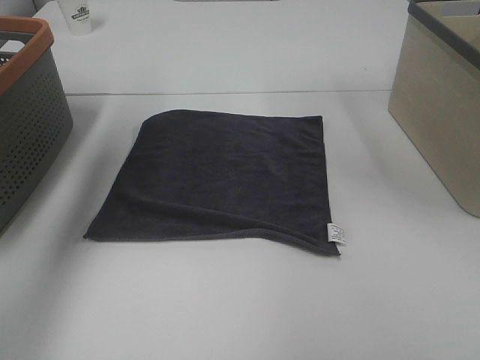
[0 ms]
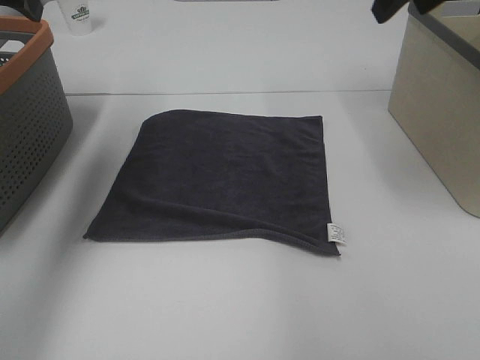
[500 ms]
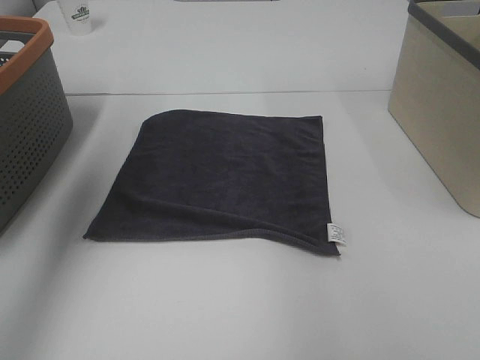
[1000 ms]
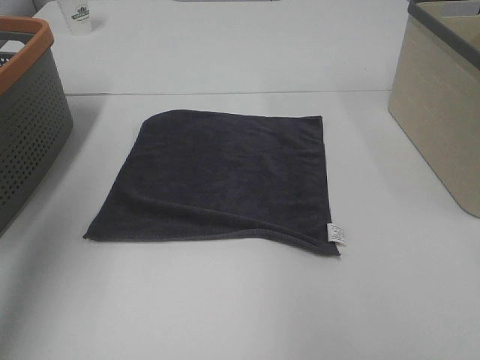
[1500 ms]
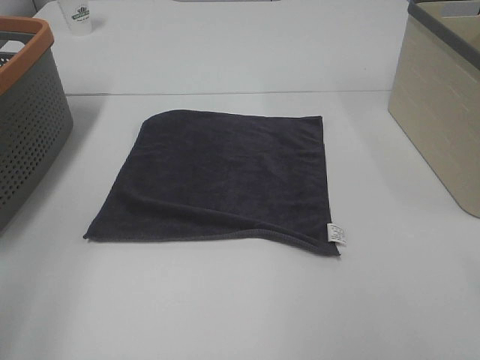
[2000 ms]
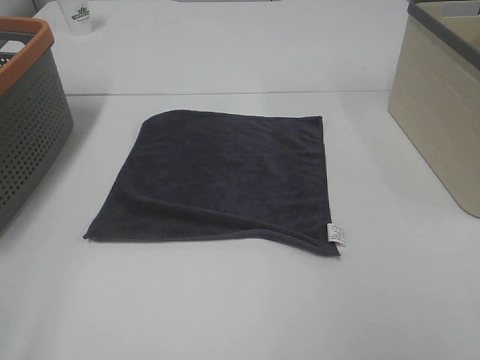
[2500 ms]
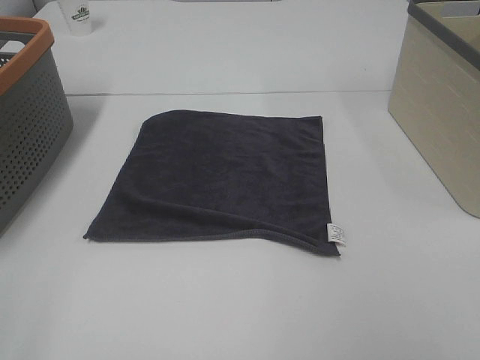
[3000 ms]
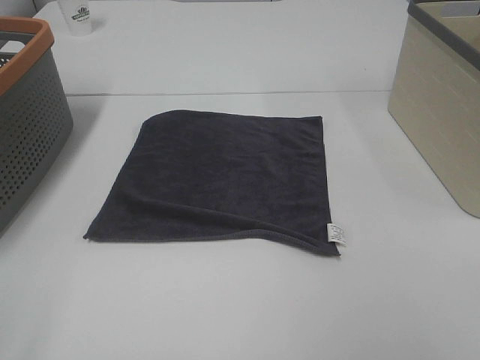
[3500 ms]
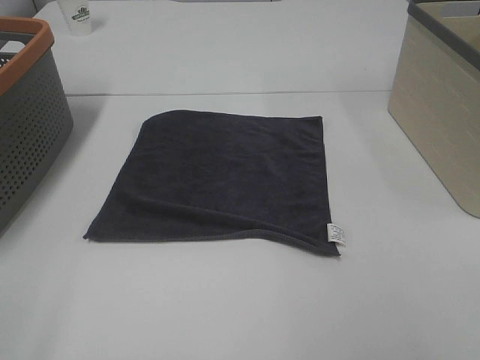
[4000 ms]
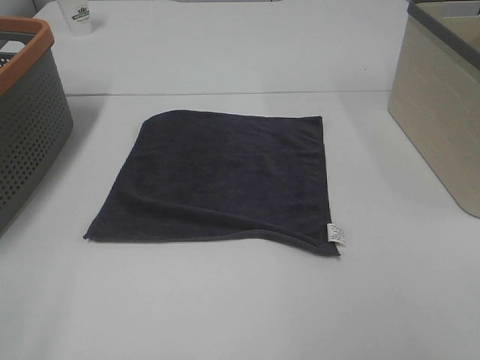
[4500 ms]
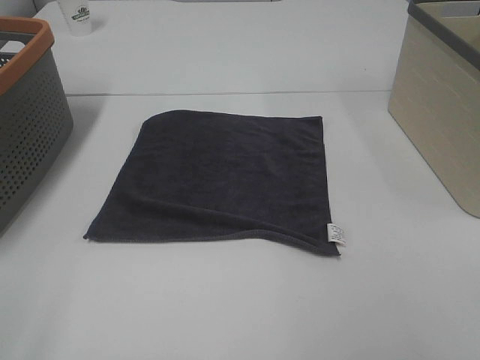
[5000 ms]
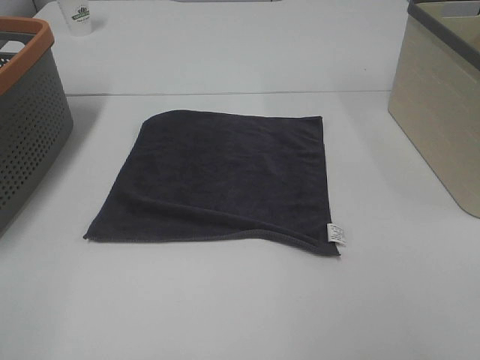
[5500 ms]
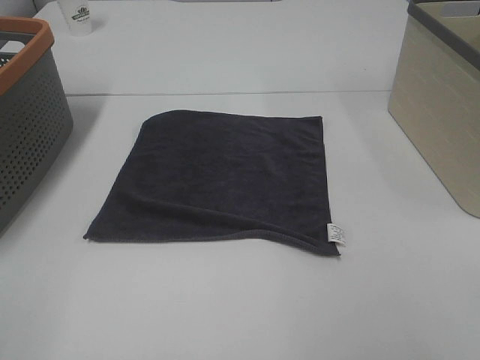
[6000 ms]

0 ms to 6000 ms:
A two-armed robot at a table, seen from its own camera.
Task of the whole recording: Remove the towel and place it.
0 ms to 2000 ms: The left gripper goes some 30 cm backward, while the right gripper is displaced backward and to the right by approximately 25 cm.

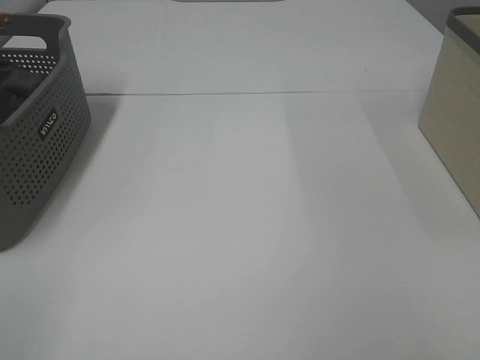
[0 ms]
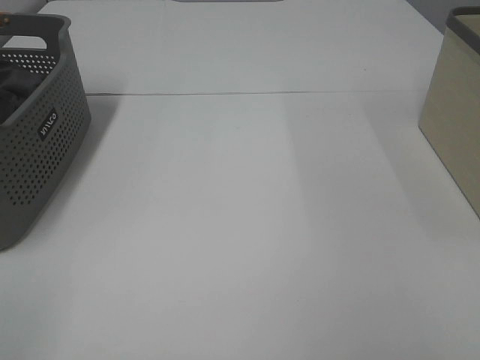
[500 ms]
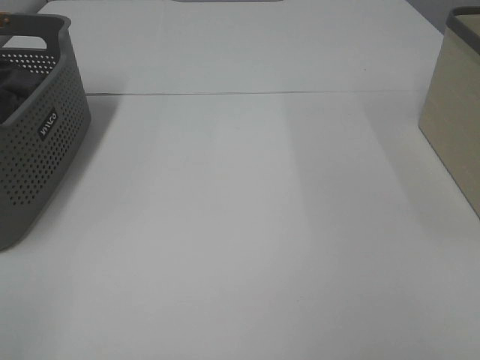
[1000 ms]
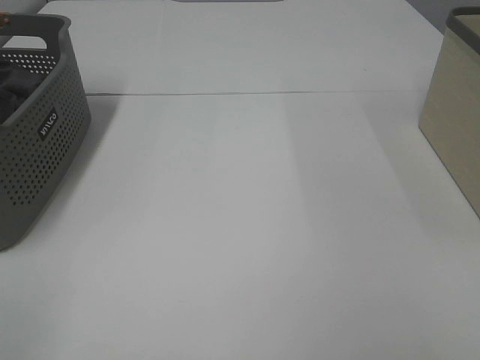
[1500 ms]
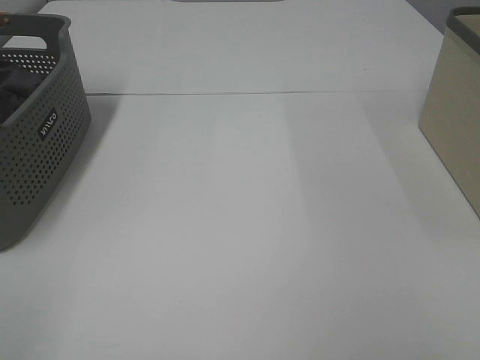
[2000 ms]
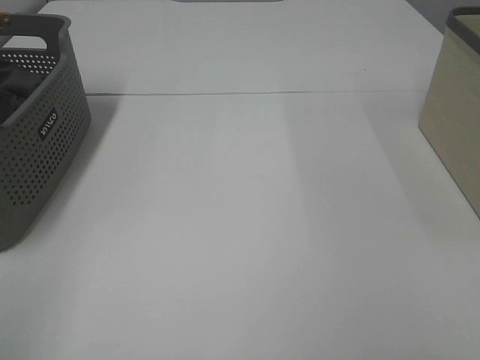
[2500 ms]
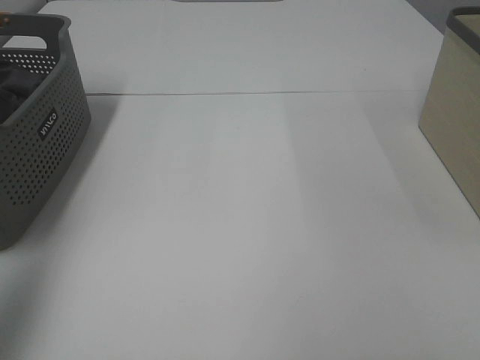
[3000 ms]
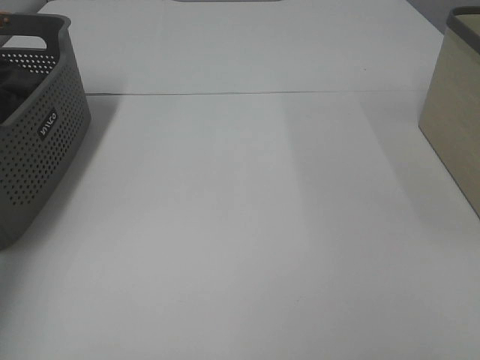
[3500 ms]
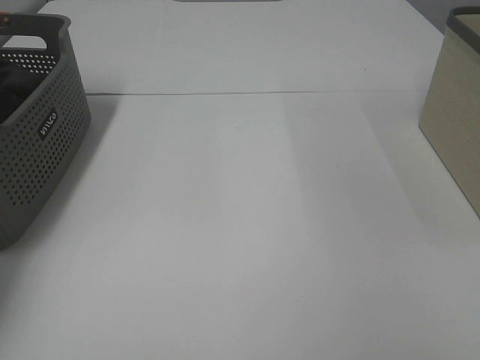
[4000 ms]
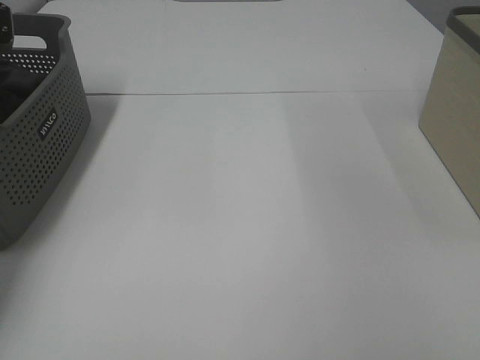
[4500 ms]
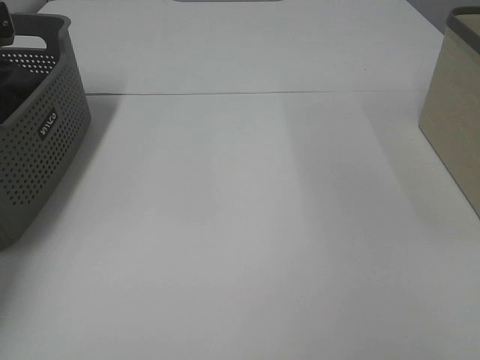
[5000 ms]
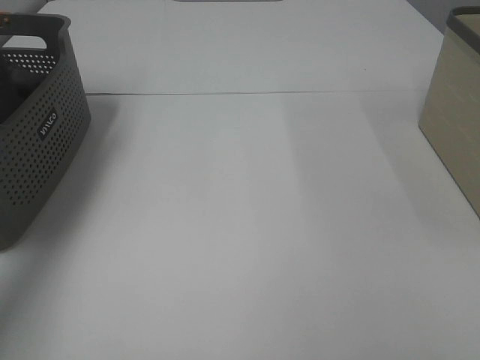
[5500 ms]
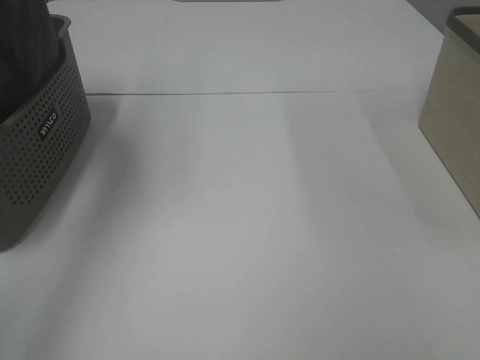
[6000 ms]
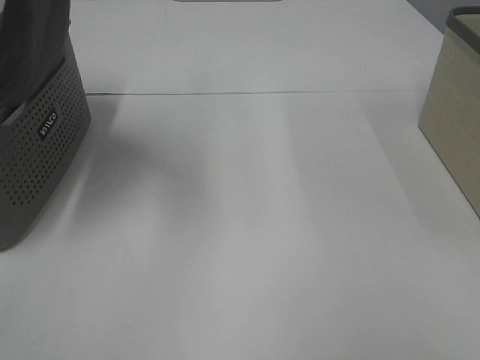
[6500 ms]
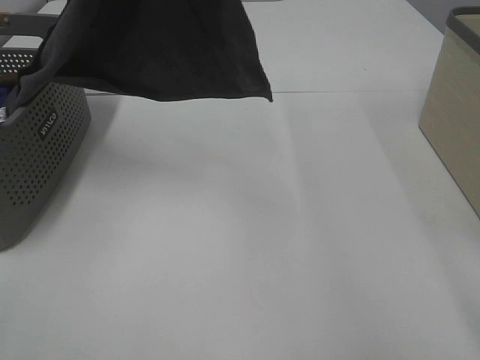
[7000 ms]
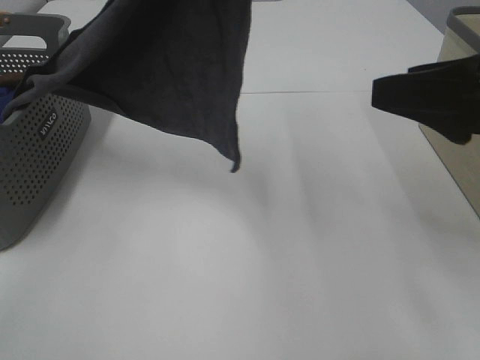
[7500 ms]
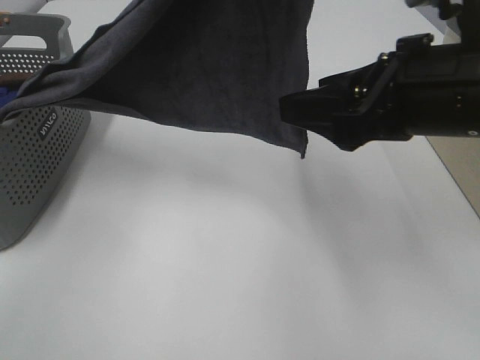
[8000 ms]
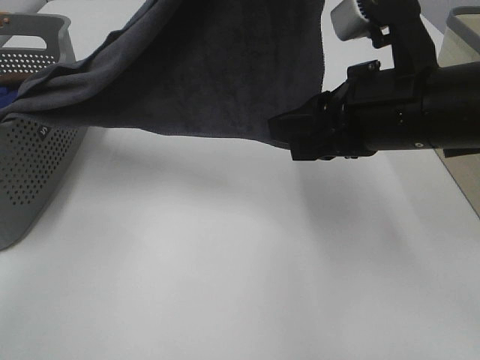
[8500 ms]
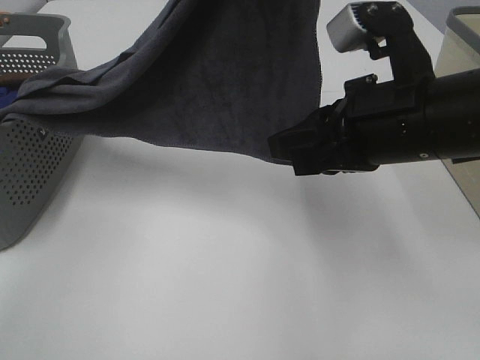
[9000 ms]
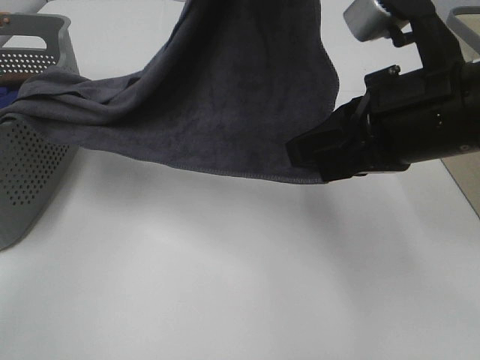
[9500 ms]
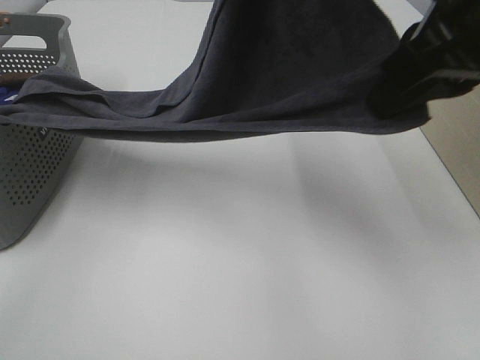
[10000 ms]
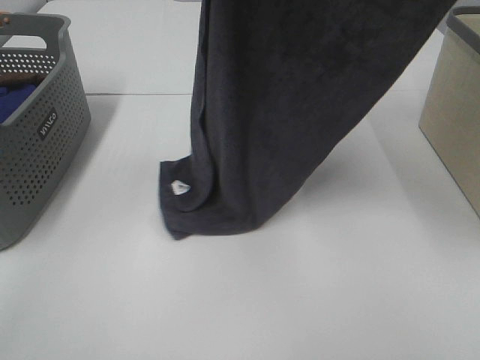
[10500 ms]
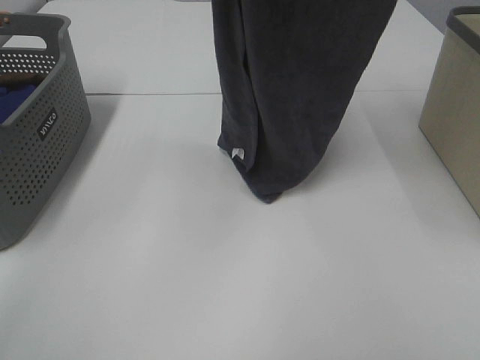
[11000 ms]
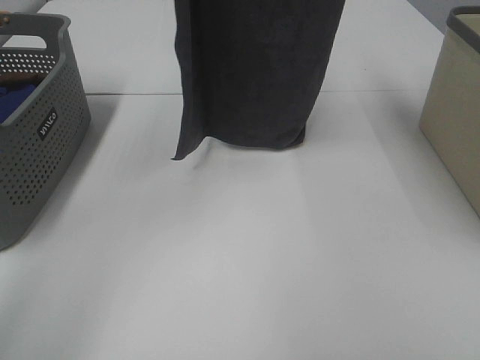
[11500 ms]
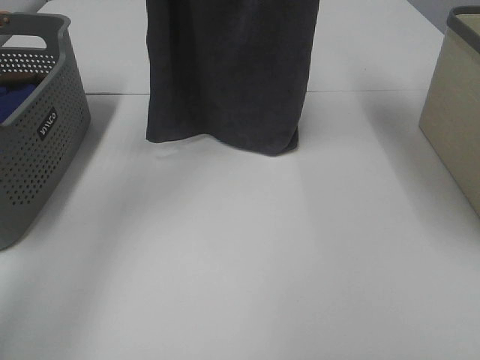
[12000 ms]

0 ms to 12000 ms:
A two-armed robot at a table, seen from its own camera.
Task of the whole recording: Remove the towel and place it.
Step, 6500 ms to 10000 ms: Right hand: grab a corner of the grey towel and straighten it.
2000 ms to 4000 ms: The left gripper is displaced forward by roughly 50 cm.
4000 ms to 6000 ms: The left gripper shifts some 30 cm upward, to the right and backward, and closes.
6000 ms to 8000 ms: The right gripper goes approximately 25 cm forward and to the left. The left gripper is displaced to the right and backward by roughly 25 cm.
8000 ms to 10000 ms: The right gripper travels upward by about 10 cm, and closes.
10000 ms to 12000 ms: The right gripper heads forward and upward, covering some 25 cm. Meanwhile the left gripper moves forward and to the left, roughly 20 cm.

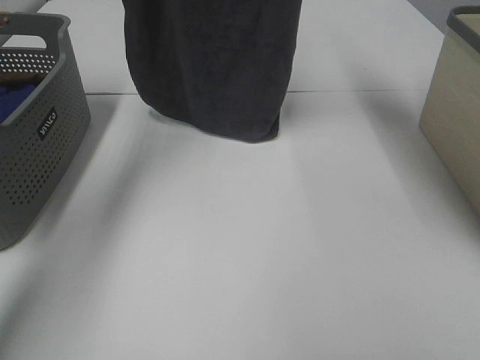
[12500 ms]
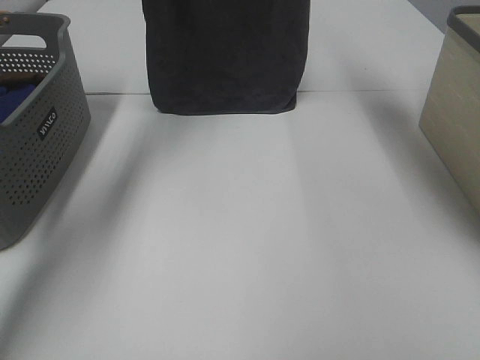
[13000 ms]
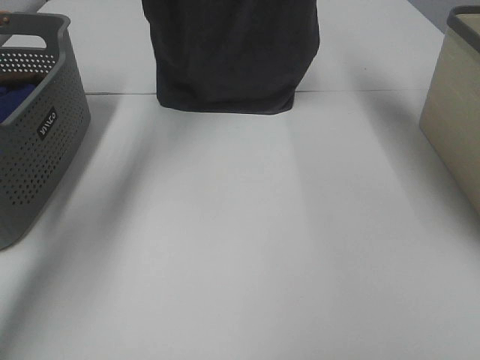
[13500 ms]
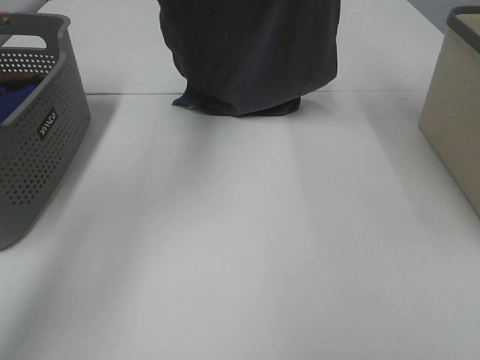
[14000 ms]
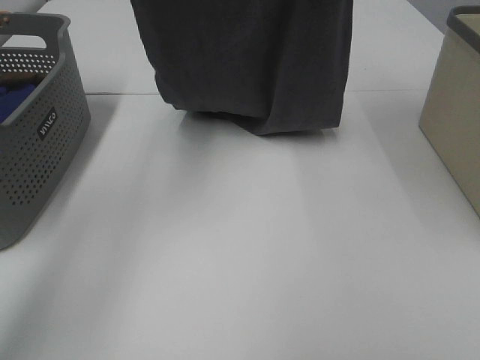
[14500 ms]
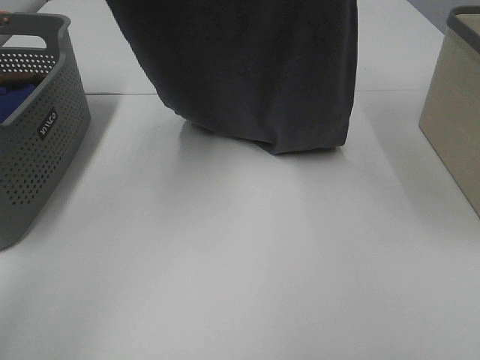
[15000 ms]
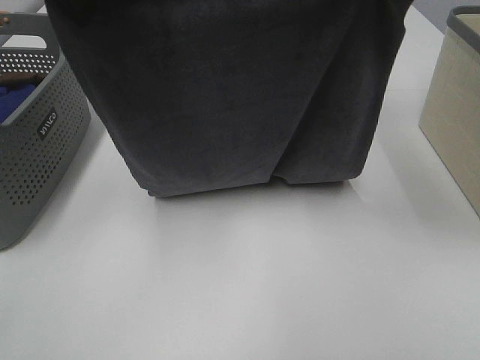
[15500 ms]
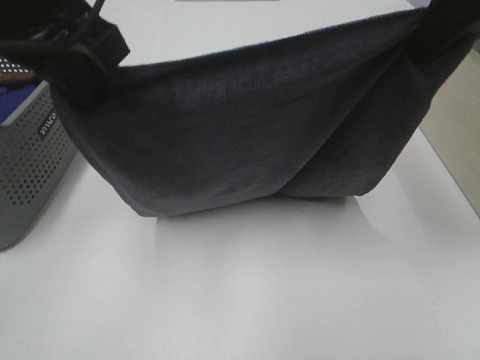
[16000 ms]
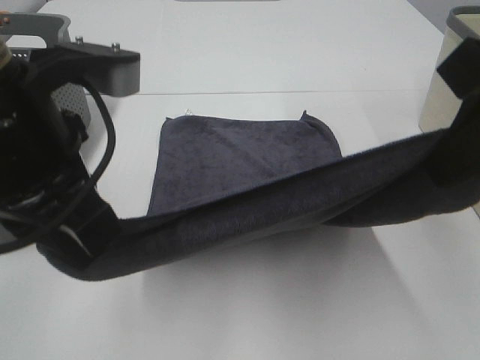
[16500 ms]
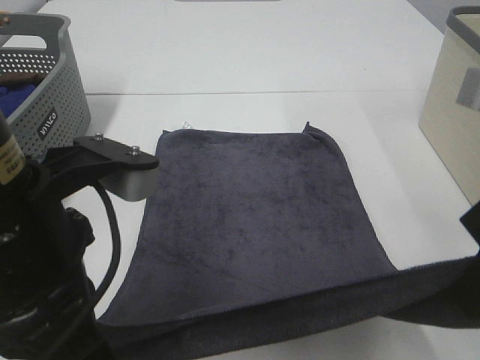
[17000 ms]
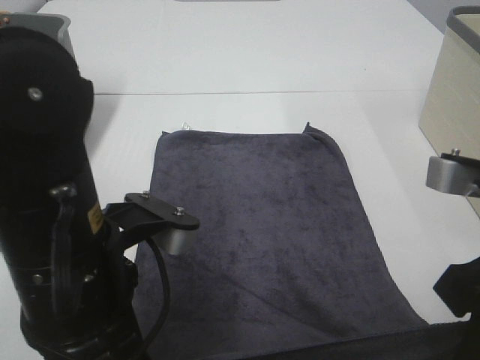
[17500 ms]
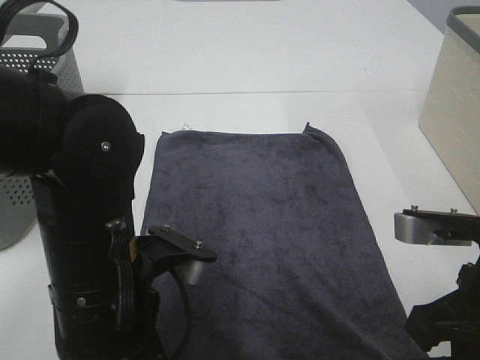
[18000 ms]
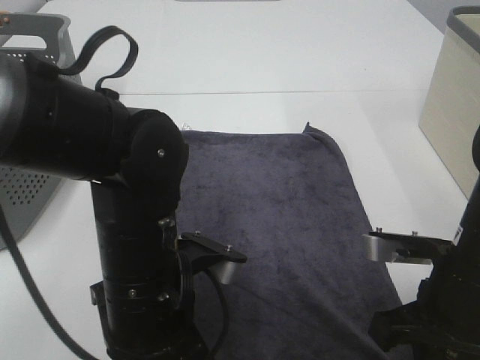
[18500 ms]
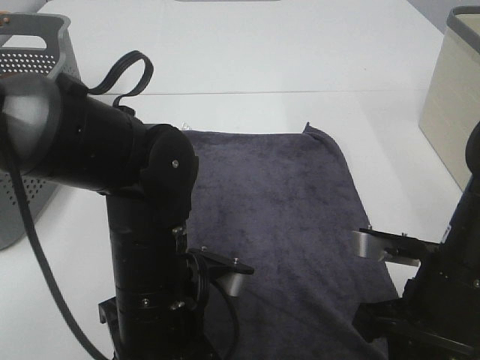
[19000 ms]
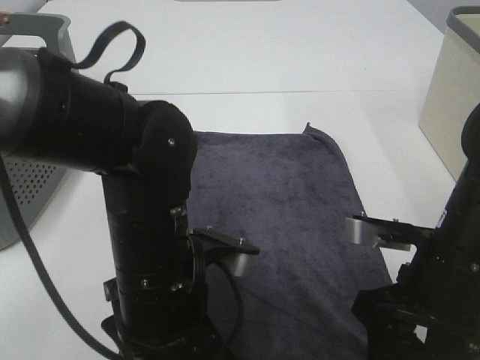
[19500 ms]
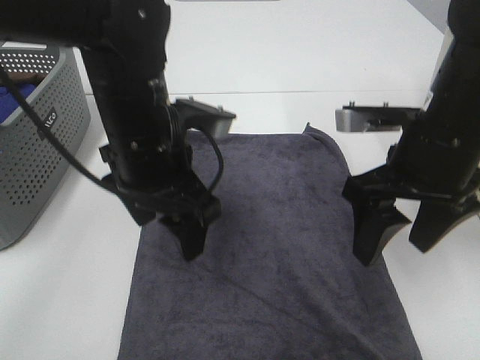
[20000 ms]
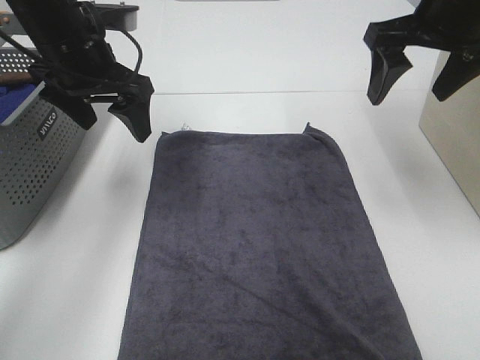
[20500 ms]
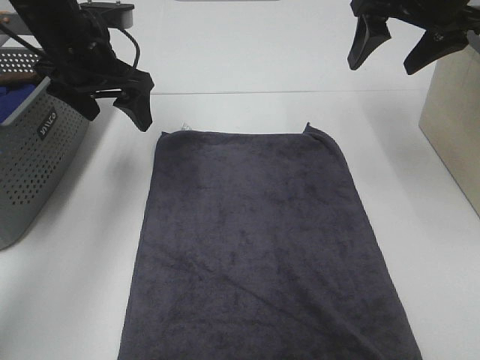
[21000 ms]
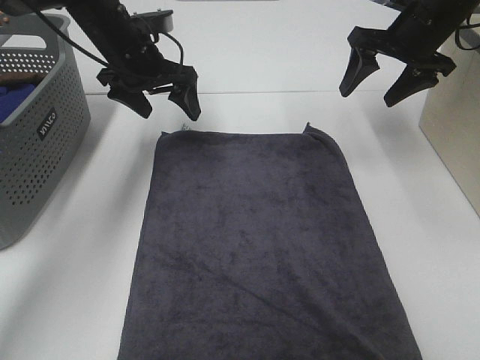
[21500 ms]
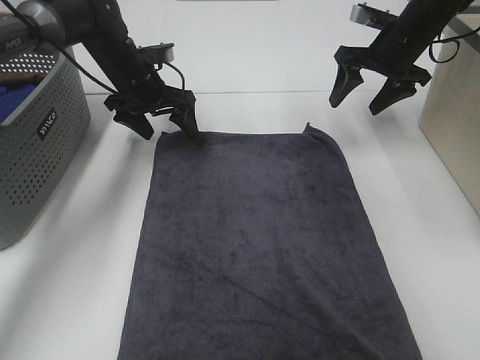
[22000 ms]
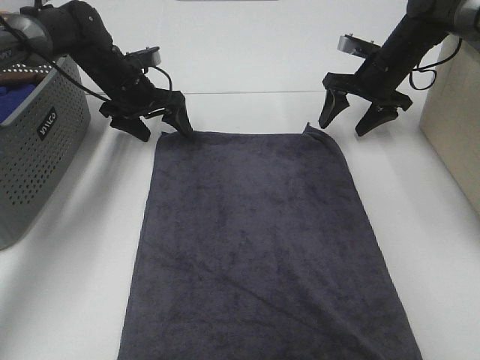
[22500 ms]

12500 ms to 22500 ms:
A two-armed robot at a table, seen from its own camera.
Task of the whole recording: Remove the towel and place it.
Step, 12500 ms to 15500 ms: Left hand: spread the grey towel flat on the table.
Step, 12500 ms to 15500 ms: Right hand: spread the grey towel flat on the table.
12500 ms to 14500 ms: Both grippers travel together backward, roughly 5 cm.
14500 ms to 16500 ms: Both grippers travel together backward and downward, about 25 cm.
16500 ms to 18500 ms: The left gripper heads downward and to the right, covering approximately 15 cm. The right gripper shifts roughly 20 cm downward.
18500 ms to 20500 ms: The left gripper travels forward, to the left and upward by some 25 cm, and opens its fingers. Meanwhile the right gripper heads forward and upward, covering approximately 25 cm, and opens its fingers.
20500 ms to 22500 ms: The left gripper goes some 20 cm forward and downward, while the right gripper moves downward and forward, about 20 cm.
